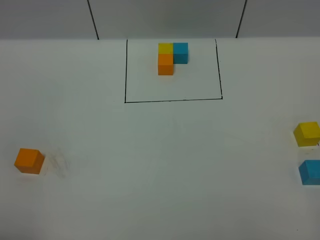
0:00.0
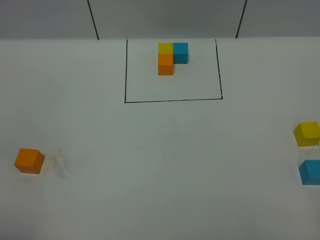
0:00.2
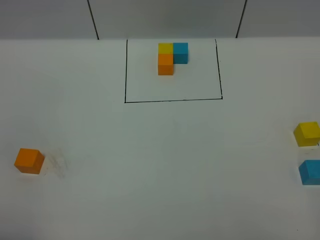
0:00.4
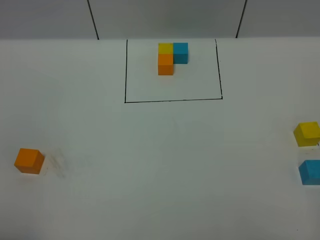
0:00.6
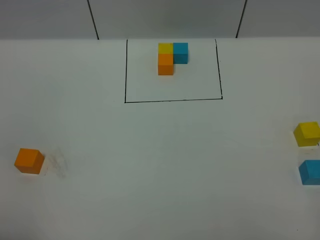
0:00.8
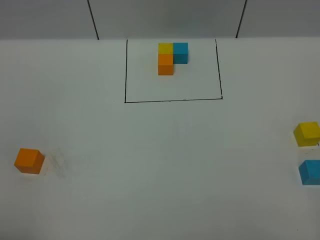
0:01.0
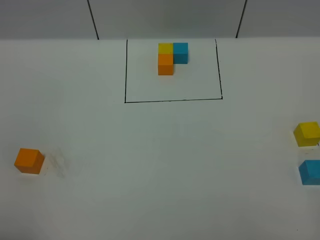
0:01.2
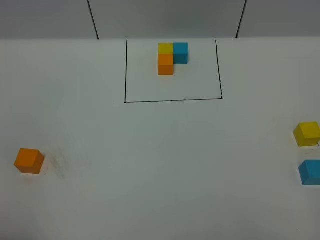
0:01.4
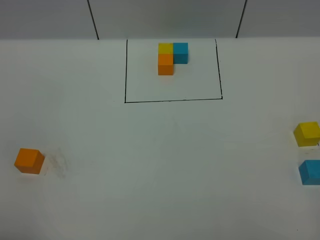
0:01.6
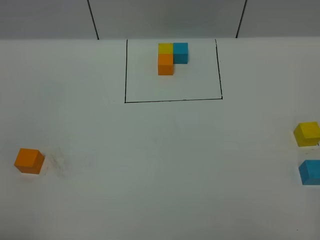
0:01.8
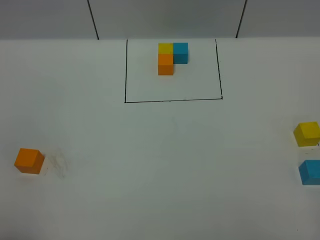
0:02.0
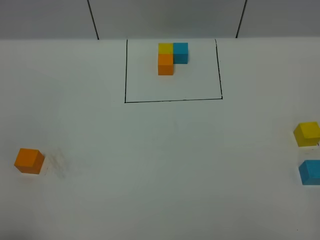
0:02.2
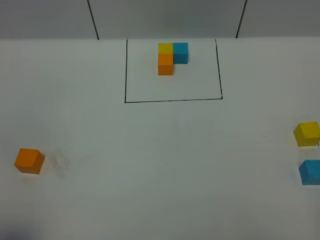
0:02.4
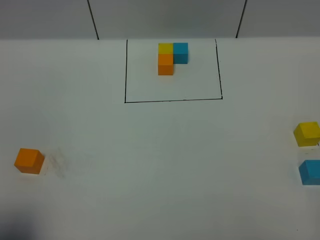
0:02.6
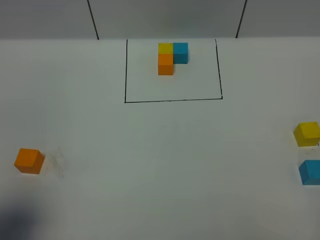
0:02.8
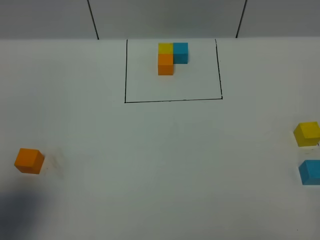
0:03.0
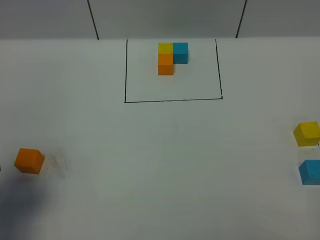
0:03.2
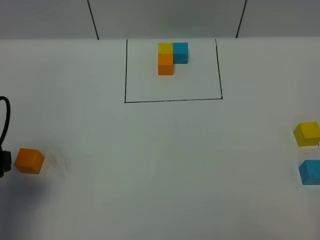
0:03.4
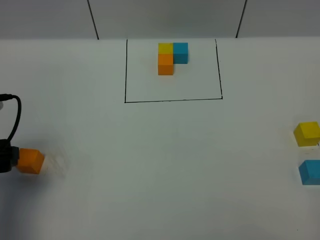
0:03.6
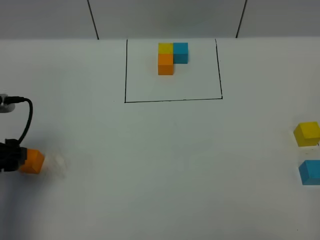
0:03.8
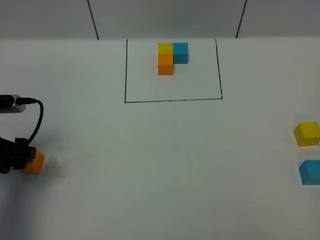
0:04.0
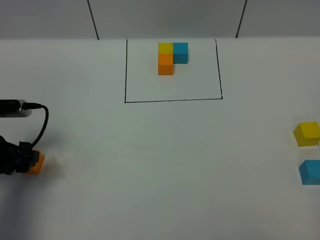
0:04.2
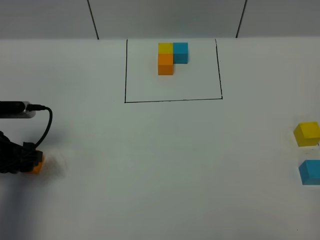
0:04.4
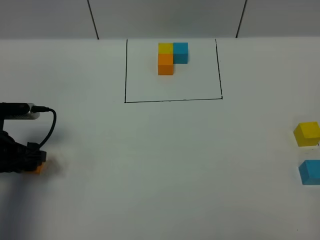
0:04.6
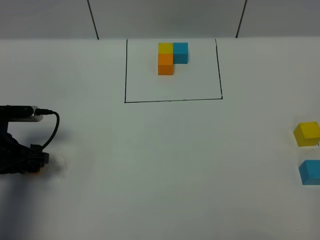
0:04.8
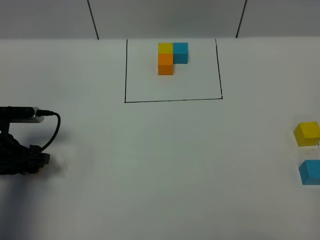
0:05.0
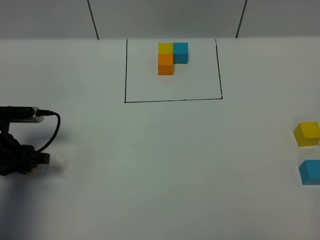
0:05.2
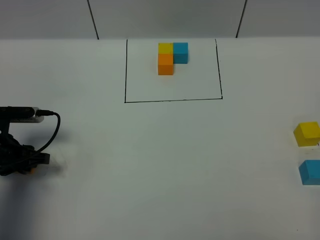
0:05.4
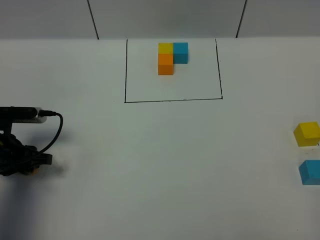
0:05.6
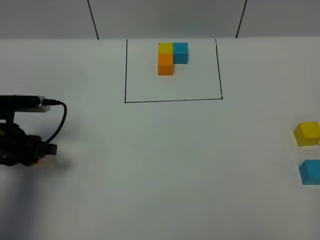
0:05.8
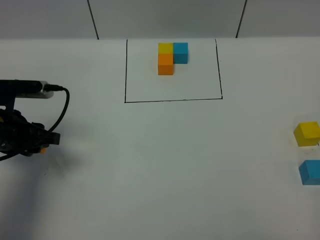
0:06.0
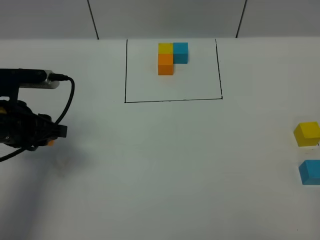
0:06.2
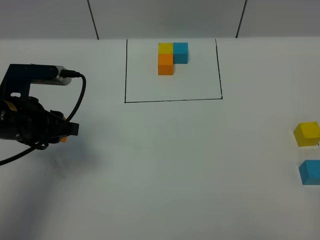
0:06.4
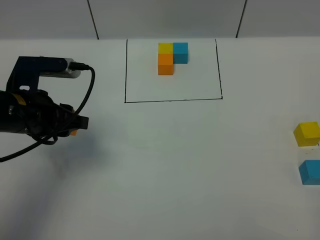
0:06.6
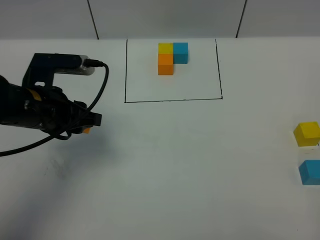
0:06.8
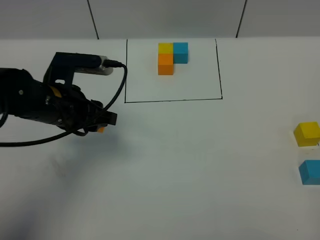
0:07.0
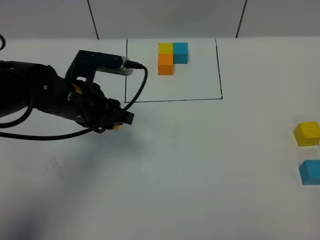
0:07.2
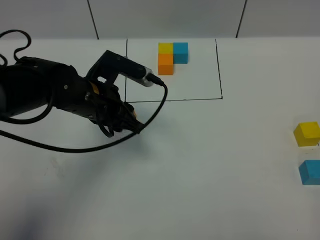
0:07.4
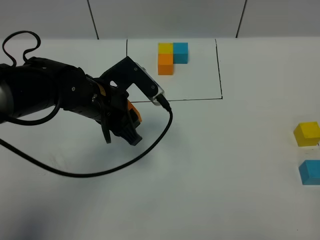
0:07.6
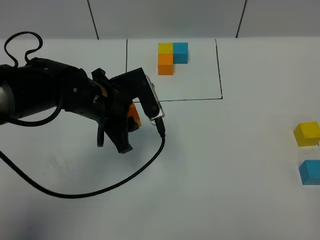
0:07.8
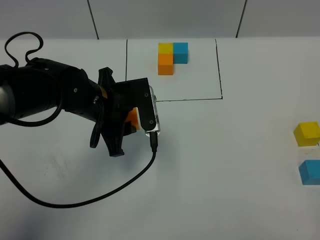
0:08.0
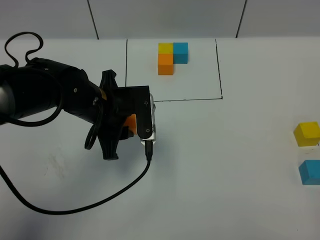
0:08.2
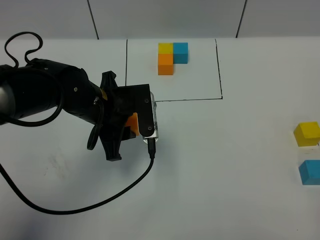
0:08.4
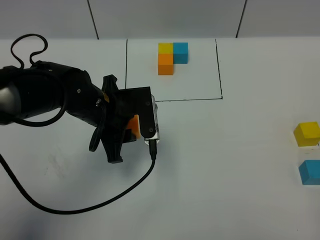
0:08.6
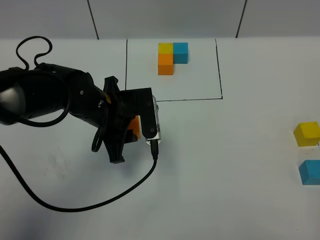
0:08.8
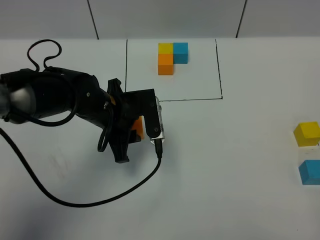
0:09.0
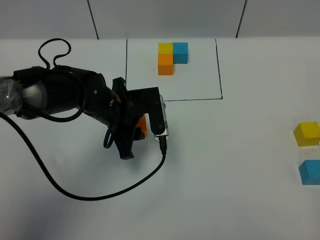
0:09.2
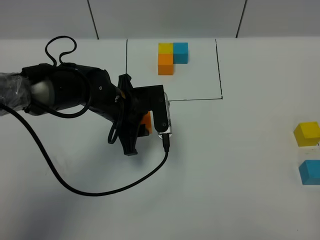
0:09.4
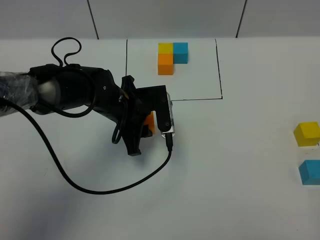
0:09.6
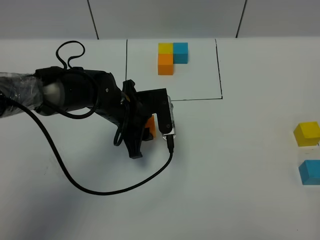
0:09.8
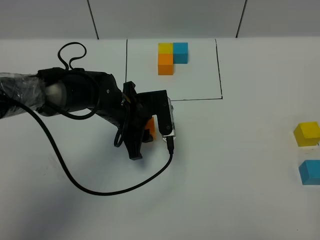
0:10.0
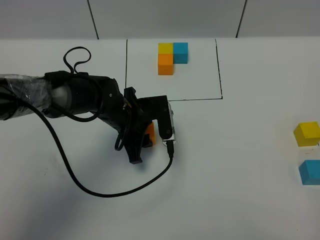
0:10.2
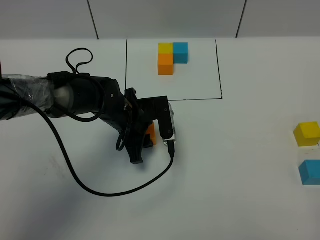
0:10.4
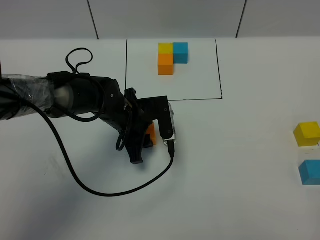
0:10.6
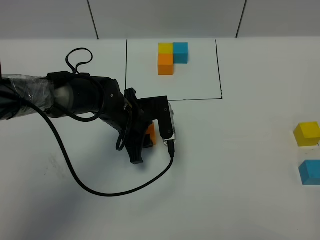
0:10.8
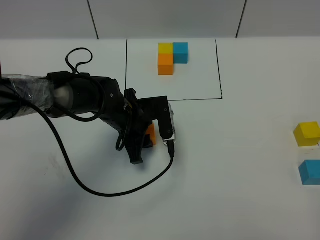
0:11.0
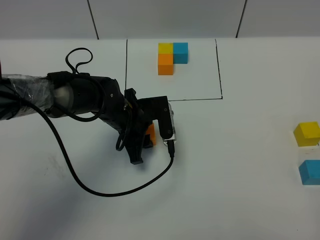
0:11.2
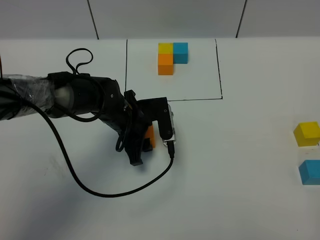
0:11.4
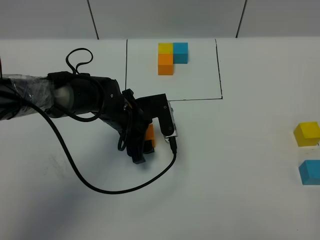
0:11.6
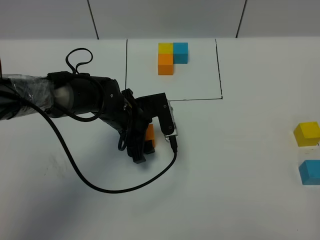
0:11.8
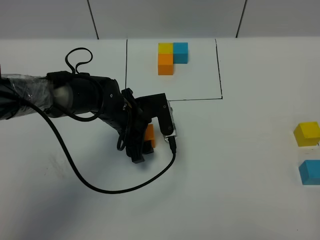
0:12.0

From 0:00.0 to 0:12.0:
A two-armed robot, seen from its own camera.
Task of the whole recording: According to the building block template in front, assemble the scattered blocks together.
From 0:00.0 to 0:01.6: Both grippers stay put.
From 0:01.6 to 0:03.0: The left gripper travels forward by approximately 10 cm, and opens its fingers.
From 0:03.0 to 0:04.4: The left gripper moves downward and forward, roughly 20 cm.
From 0:04.4 to 0:06.0: The left gripper moves roughly 5 cm, and closes up.
From 0:06.0 to 0:07.6: The left gripper goes about 15 cm to the right.
From 0:09.0 to 0:10.4: The left gripper goes some 5 cm downward.
From 0:10.4 to 0:12.0: The left gripper opens its fingers.

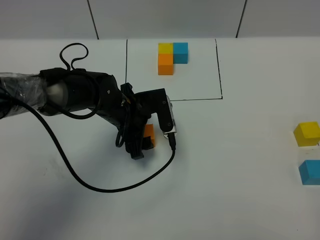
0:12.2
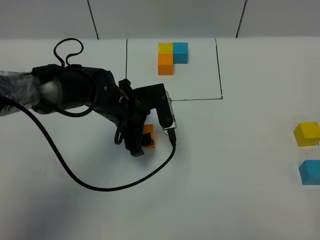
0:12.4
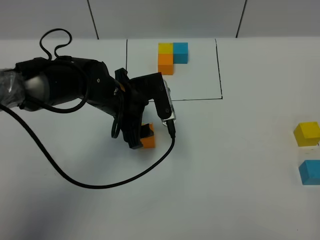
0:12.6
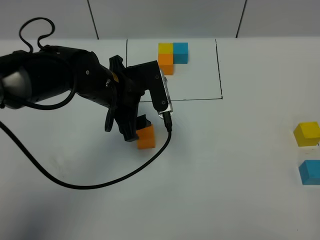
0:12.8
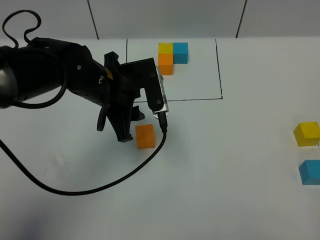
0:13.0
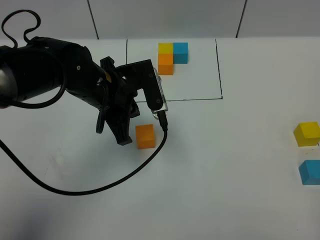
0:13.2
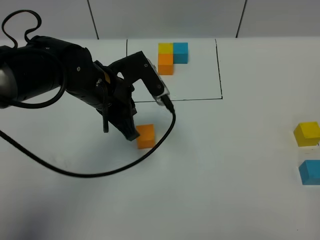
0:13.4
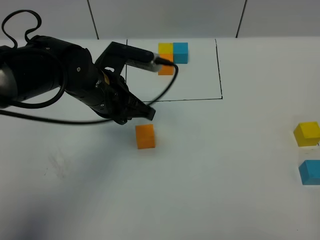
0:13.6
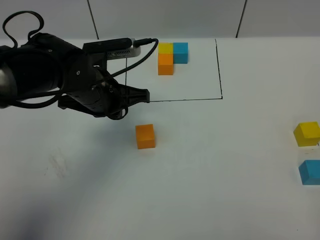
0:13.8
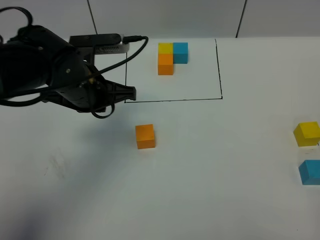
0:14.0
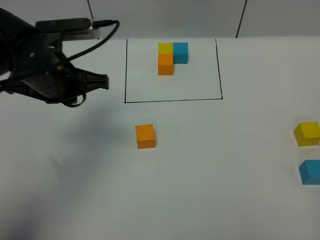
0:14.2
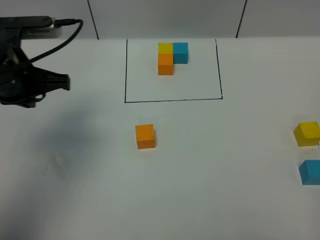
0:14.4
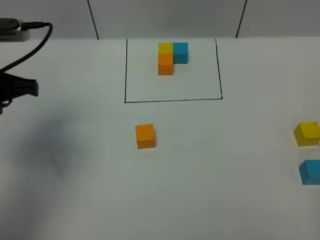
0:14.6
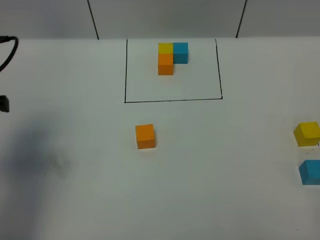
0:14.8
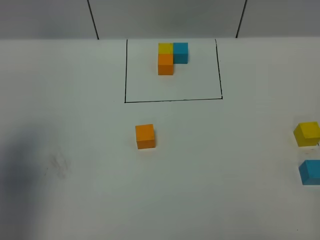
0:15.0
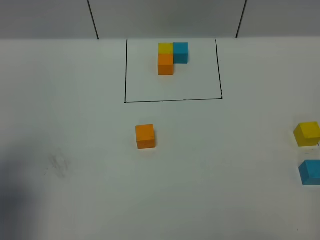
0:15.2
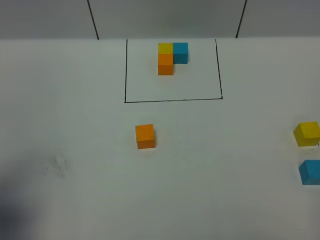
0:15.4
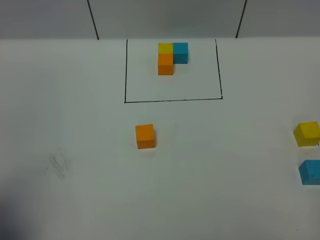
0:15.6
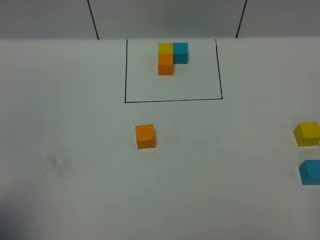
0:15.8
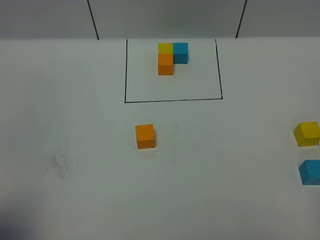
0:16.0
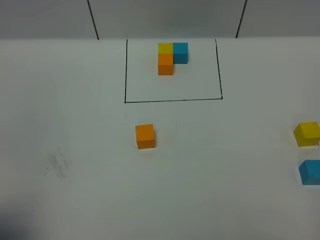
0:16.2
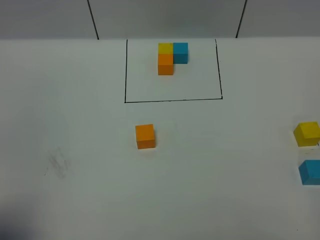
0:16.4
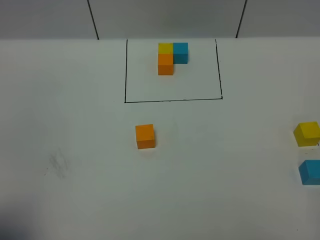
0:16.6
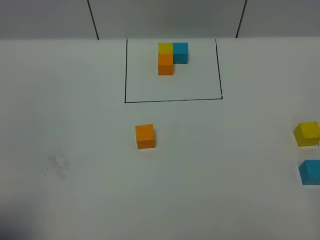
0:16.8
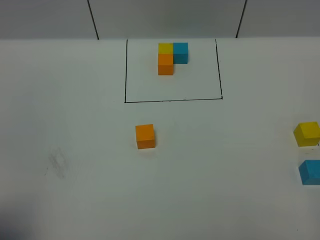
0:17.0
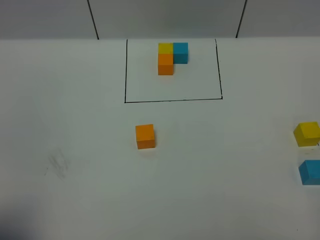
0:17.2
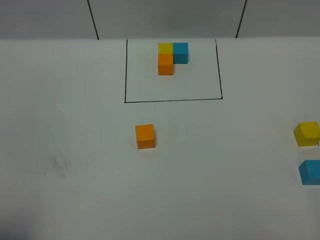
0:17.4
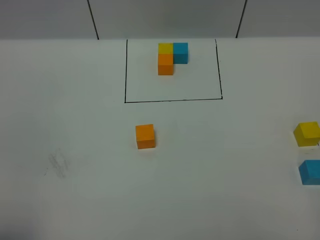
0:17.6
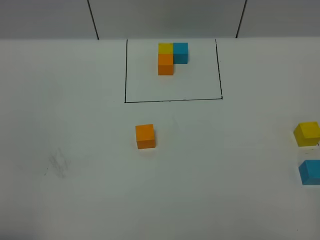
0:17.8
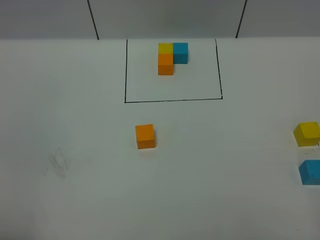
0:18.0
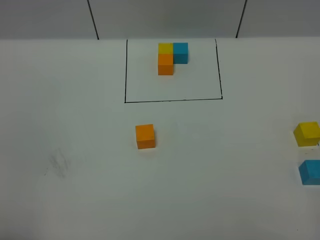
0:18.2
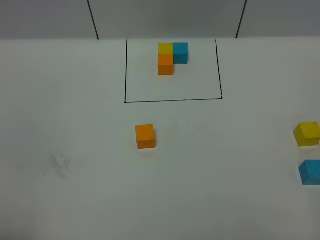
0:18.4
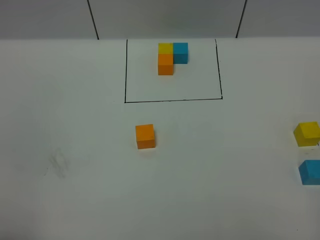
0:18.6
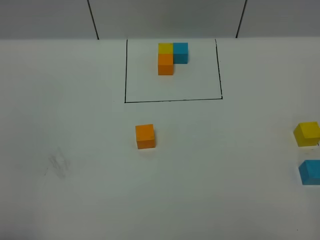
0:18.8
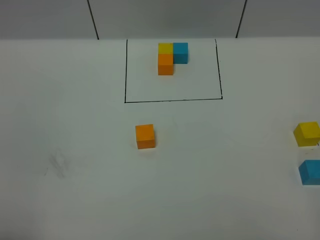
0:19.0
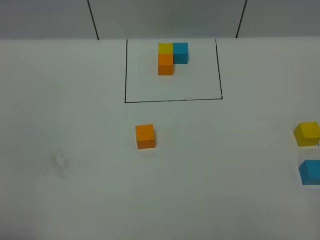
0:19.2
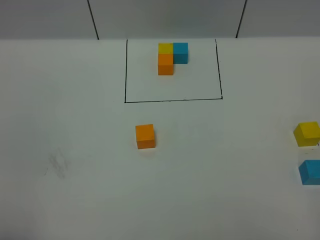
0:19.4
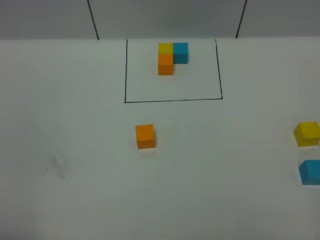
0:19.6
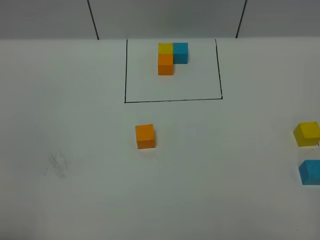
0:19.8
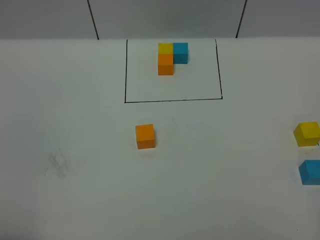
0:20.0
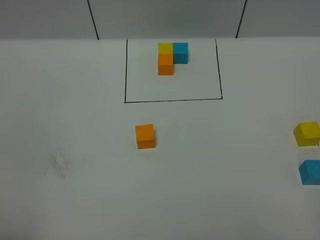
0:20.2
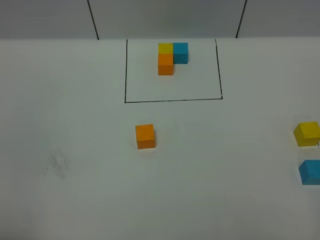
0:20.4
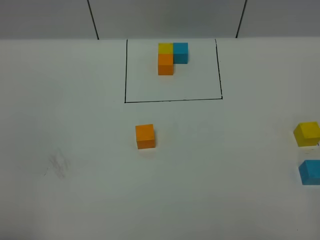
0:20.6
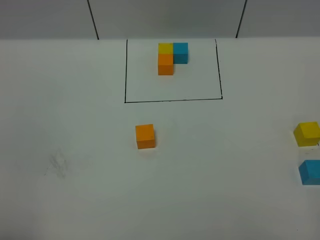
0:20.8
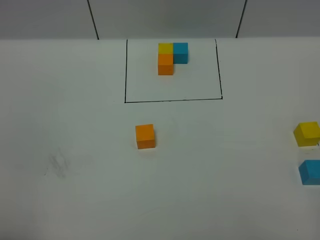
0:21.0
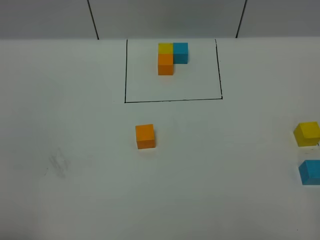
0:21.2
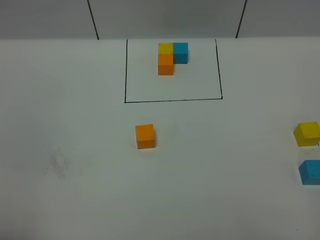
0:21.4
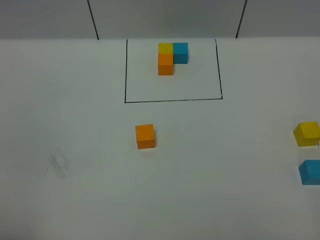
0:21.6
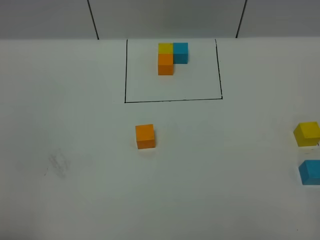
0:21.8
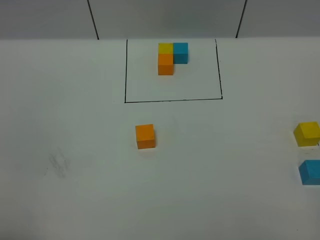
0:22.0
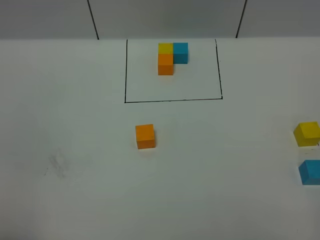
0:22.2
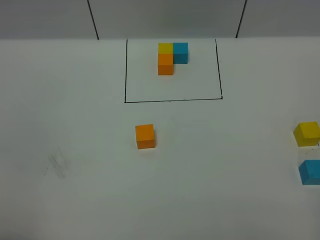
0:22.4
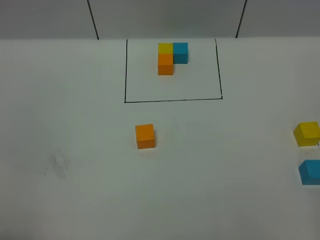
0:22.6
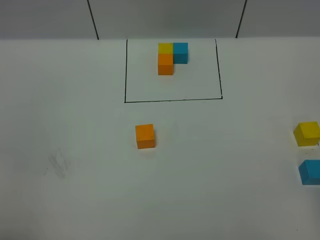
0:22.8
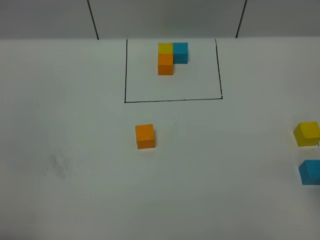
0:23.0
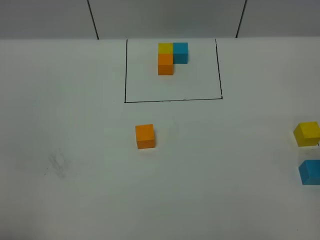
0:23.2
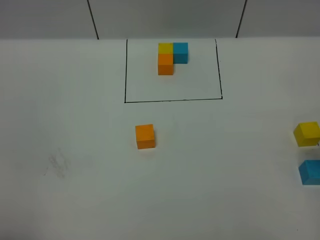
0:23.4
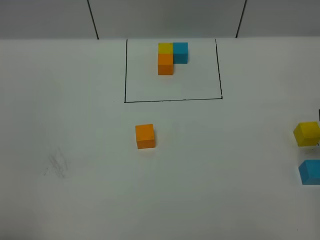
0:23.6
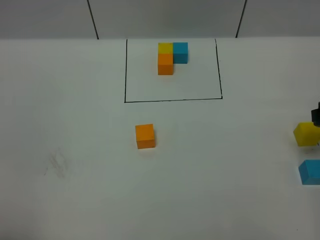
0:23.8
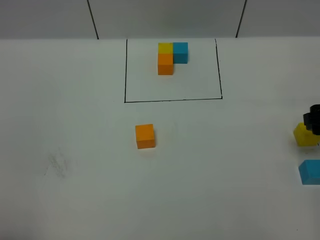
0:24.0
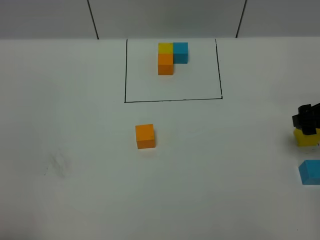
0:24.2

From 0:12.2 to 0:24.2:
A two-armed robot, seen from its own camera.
Task of the whole recording: According to the building block template in front, assemble the scattered blocks together.
From 0:12.2 to 0:13.8: The left gripper is displaced upward by roughly 10 cm, and closes its fingers.
From 0:13.8 to 0:15.2: The left gripper is displaced to the left and backward by some 25 cm.
From 0:15.2 to 0:16.6: The left gripper travels backward by approximately 10 cm.
From 0:18.2 to 0:21.2: Both grippers stay put.
From 0:22.6 to 0:24.2: The right gripper travels forward and downward by some 25 cm.
